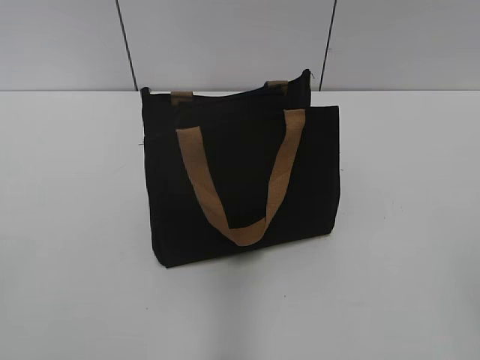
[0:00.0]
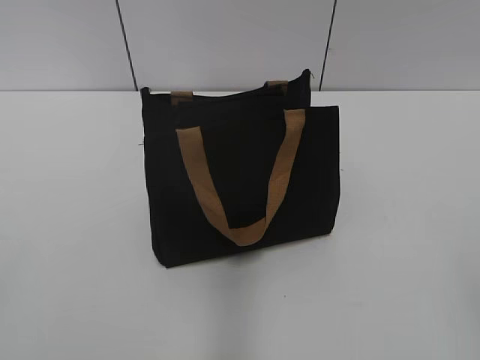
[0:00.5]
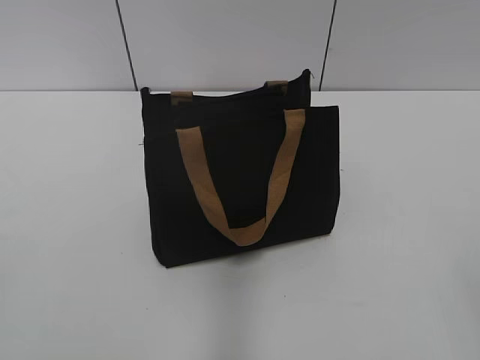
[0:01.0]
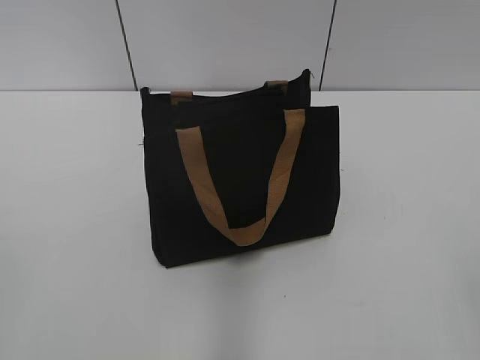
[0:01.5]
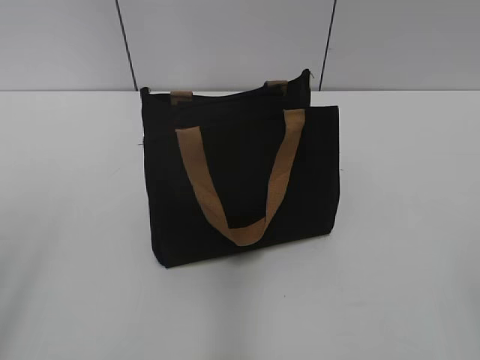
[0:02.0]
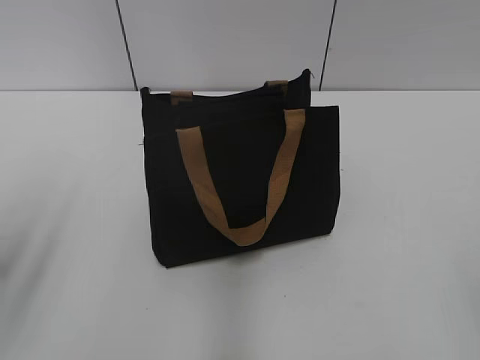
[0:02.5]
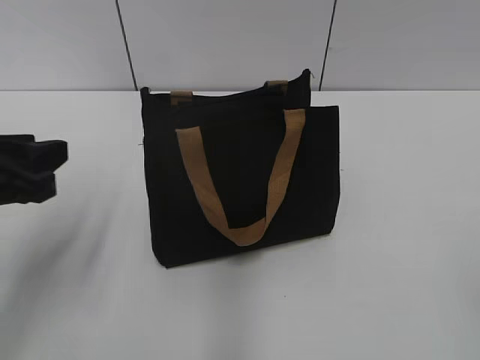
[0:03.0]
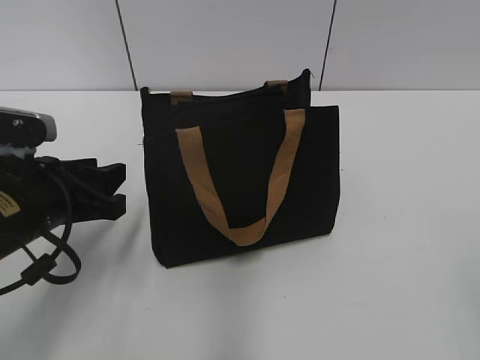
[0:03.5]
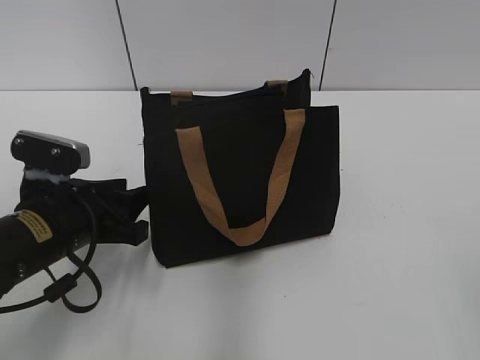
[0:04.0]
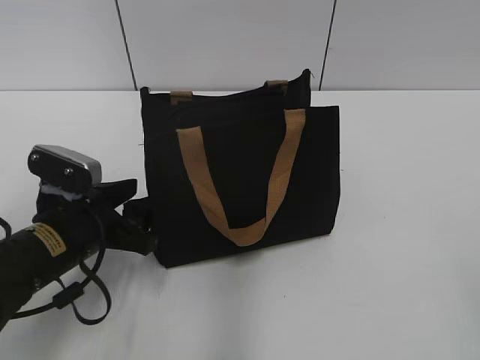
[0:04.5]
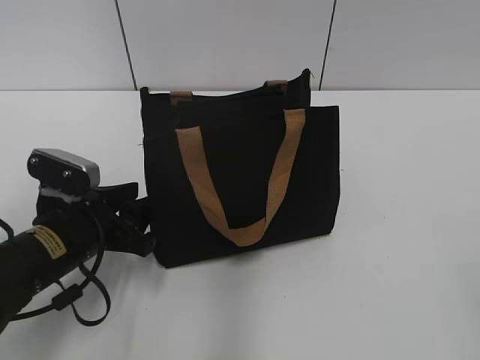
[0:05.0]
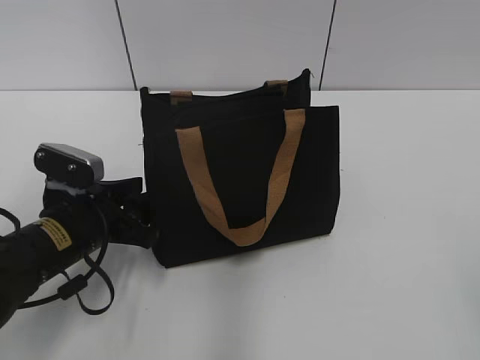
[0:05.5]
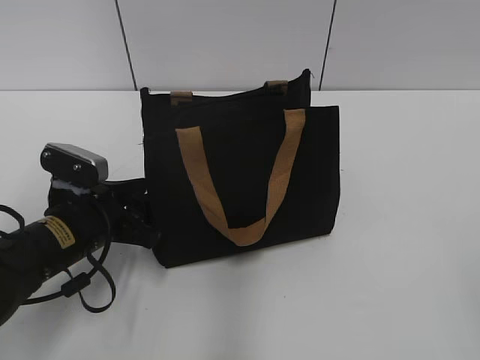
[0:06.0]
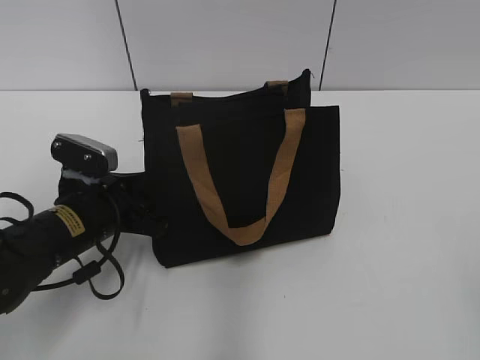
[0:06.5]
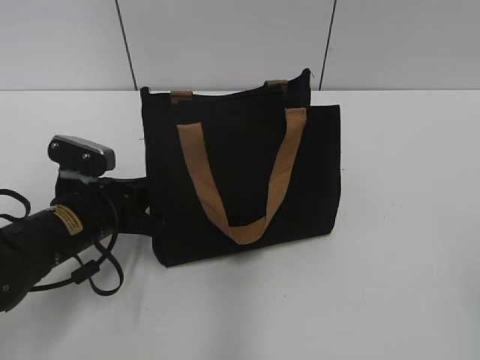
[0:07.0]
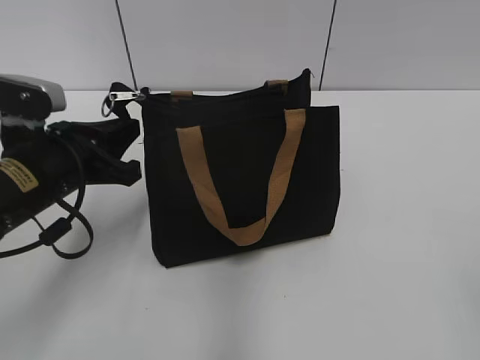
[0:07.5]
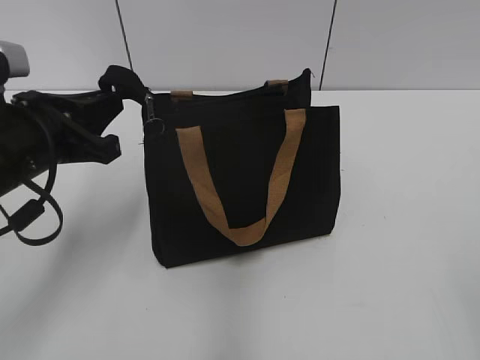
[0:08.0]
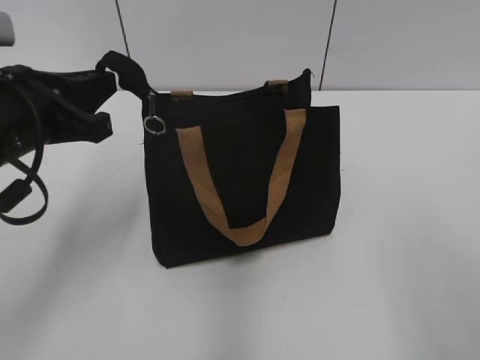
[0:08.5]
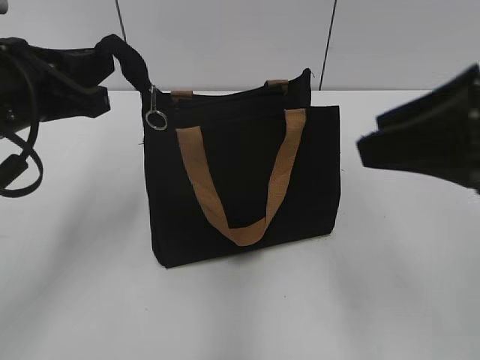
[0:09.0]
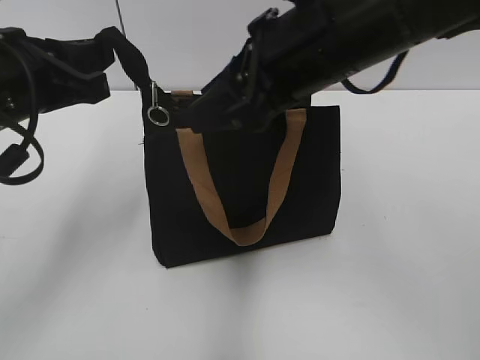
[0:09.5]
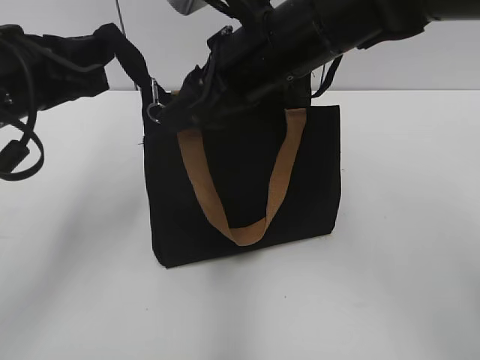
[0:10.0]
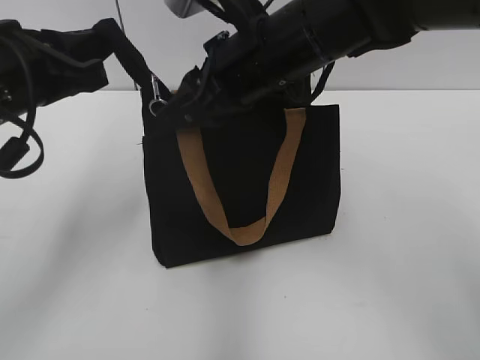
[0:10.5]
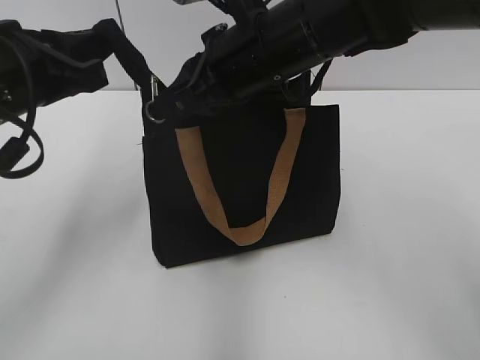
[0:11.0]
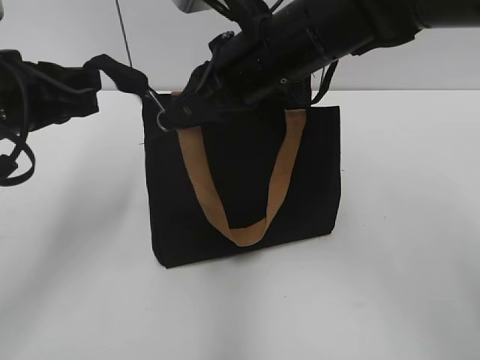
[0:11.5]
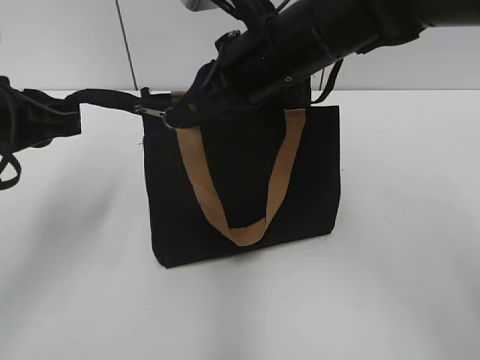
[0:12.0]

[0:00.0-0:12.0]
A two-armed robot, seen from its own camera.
0:02.0 to 0:04.0: The left gripper moves downward, forward and to the right, some 25 cm.
0:04.0 to 0:06.0: There are only small adjustments of the grippers.
0:06.0 to 0:08.0: The left gripper travels upward by some 10 cm, and closes up.
0:08.0 to 0:10.0: The left gripper goes roughly 5 cm upward. The right gripper goes about 40 cm forward and to the left.
0:10.0 to 0:12.0: The right gripper closes up.

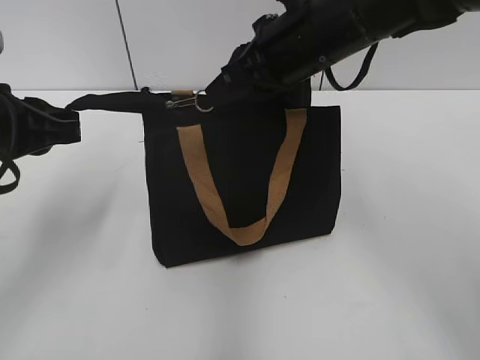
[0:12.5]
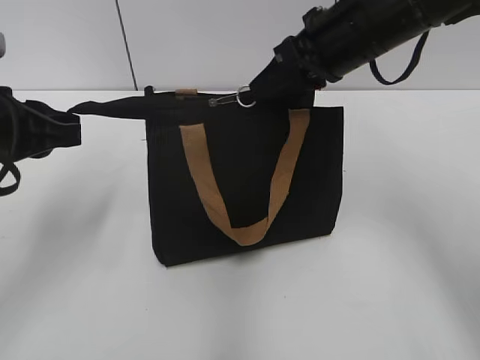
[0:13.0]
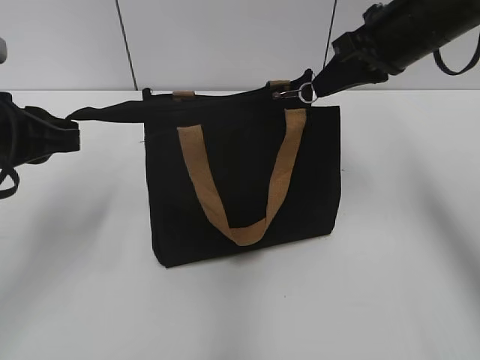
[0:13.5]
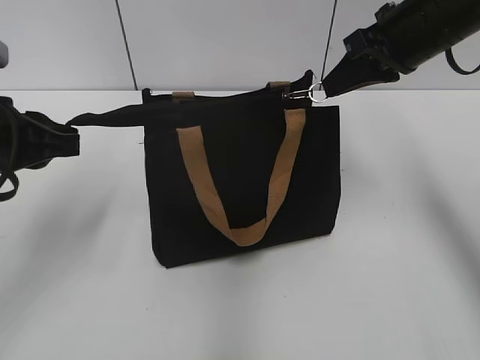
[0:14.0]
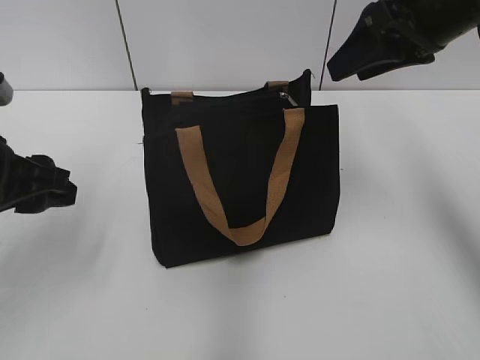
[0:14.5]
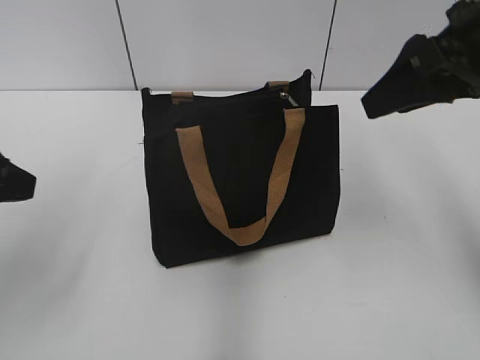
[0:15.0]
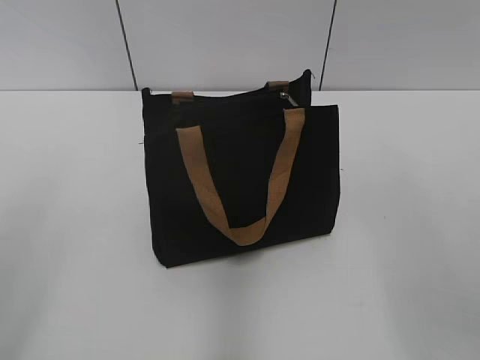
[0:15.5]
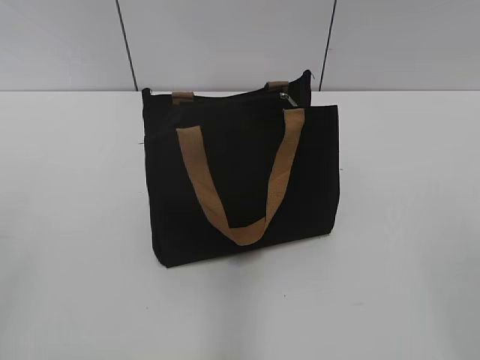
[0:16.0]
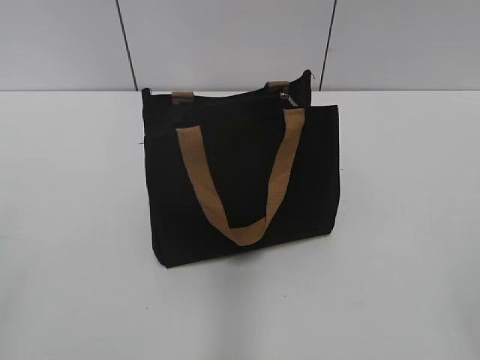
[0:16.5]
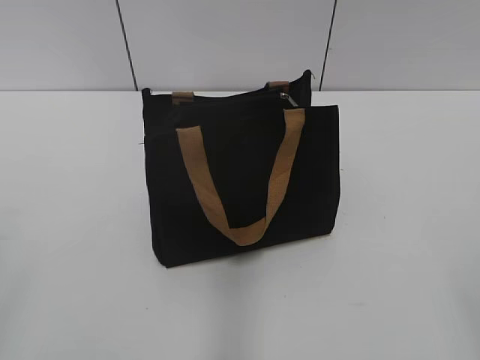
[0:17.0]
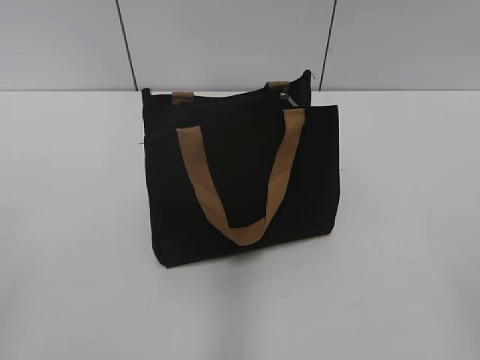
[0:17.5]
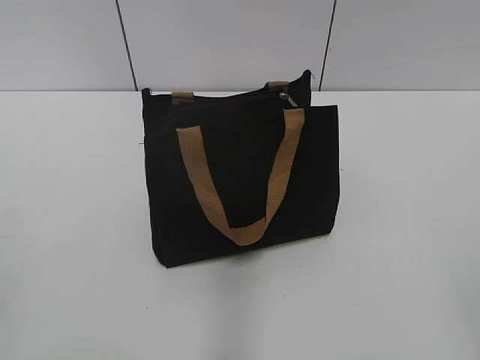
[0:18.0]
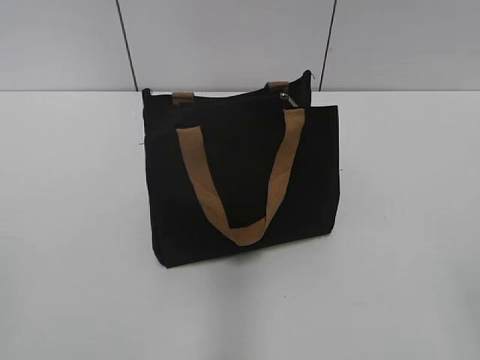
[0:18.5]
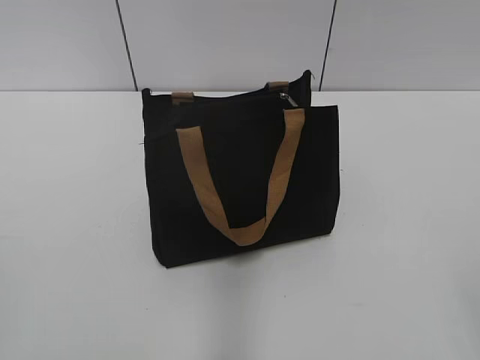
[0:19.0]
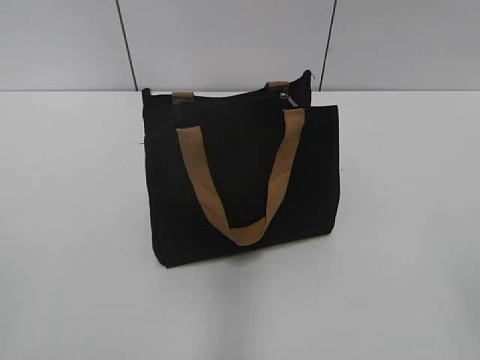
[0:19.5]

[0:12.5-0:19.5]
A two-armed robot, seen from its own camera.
0:12.5 to 0:14.5: The right gripper is displaced to the right by approximately 10 cm, and opens up. Meanwhile the left gripper opens its fingers.
0:14.5 to 0:16.0: The right gripper heads backward, covering roughly 30 cm, while the left gripper shifts about 20 cm backward and upward.

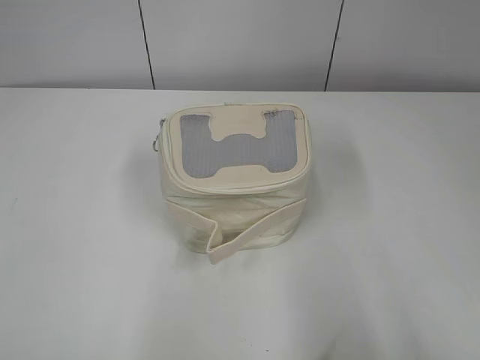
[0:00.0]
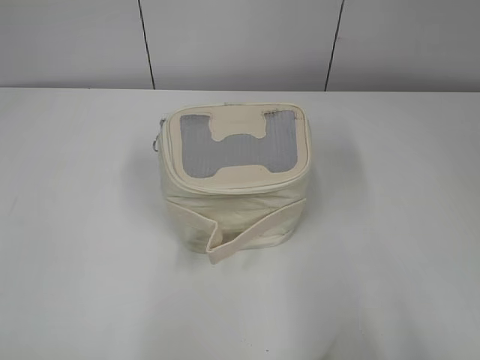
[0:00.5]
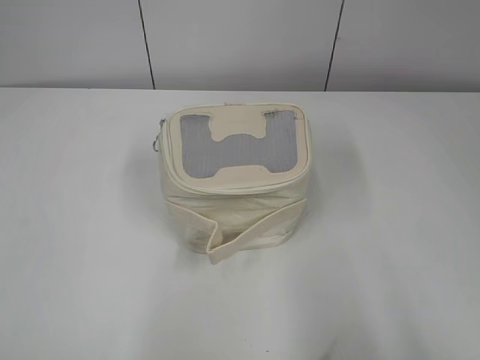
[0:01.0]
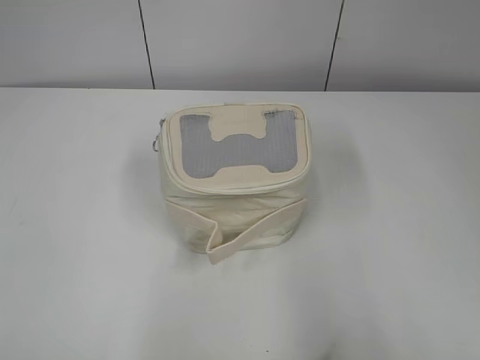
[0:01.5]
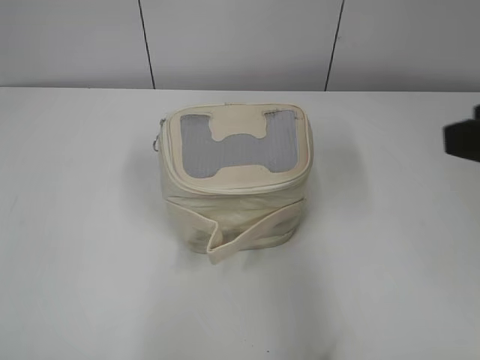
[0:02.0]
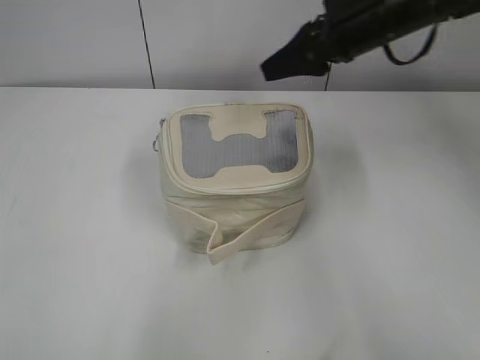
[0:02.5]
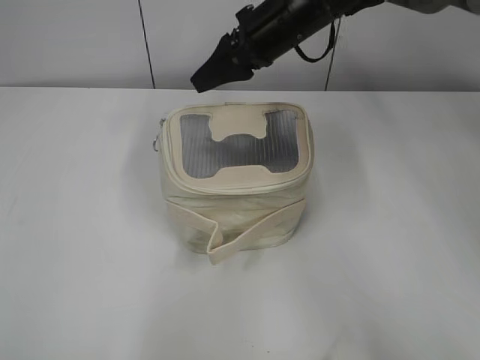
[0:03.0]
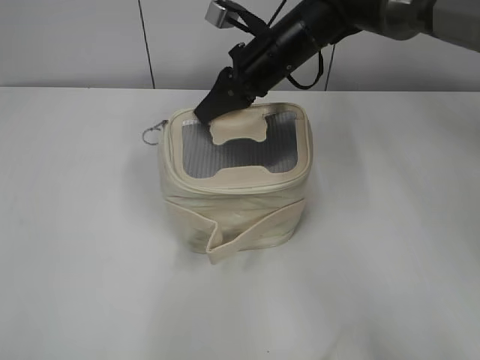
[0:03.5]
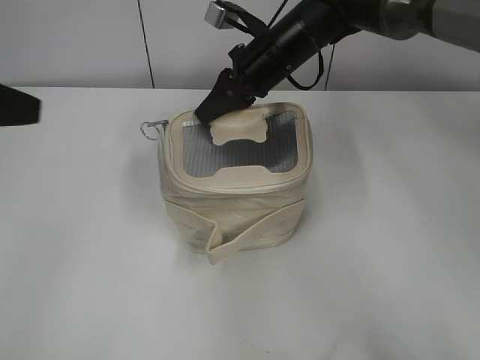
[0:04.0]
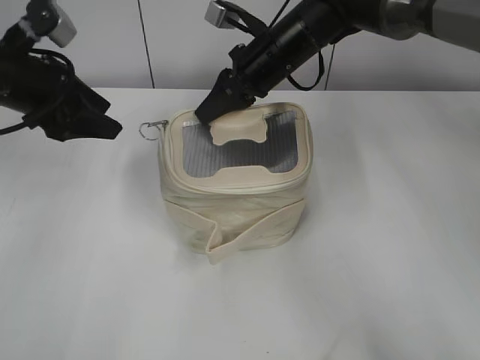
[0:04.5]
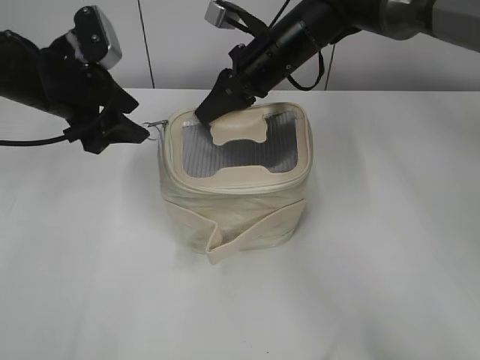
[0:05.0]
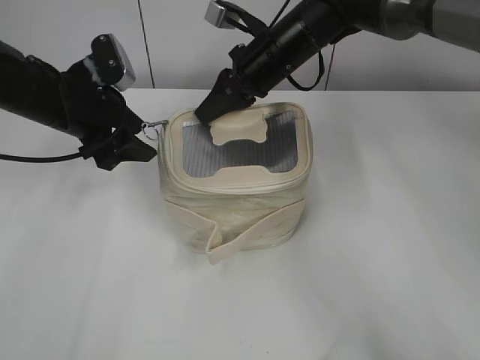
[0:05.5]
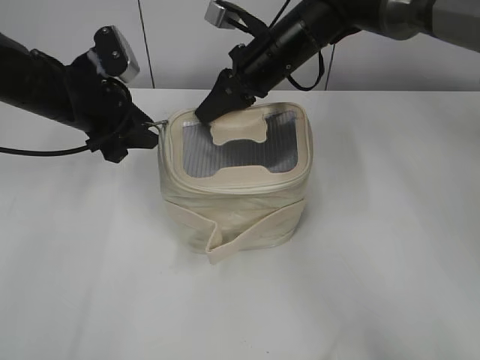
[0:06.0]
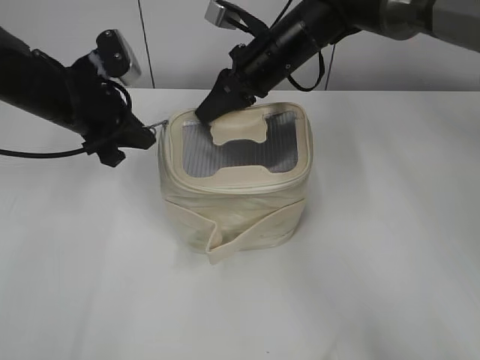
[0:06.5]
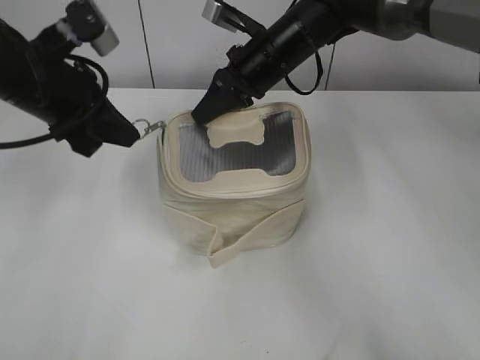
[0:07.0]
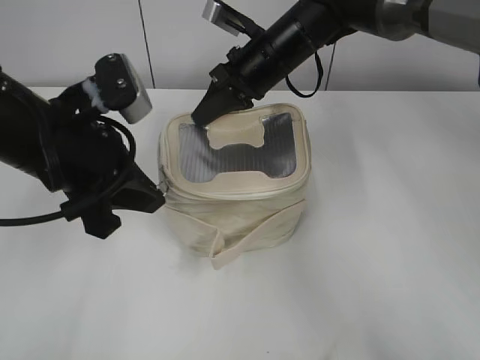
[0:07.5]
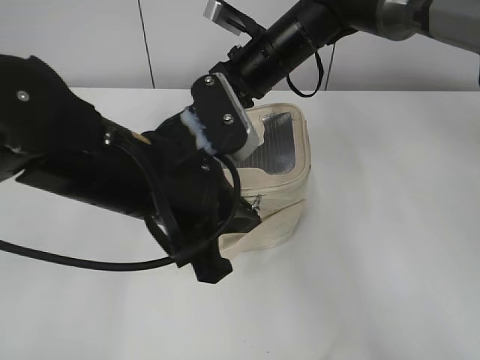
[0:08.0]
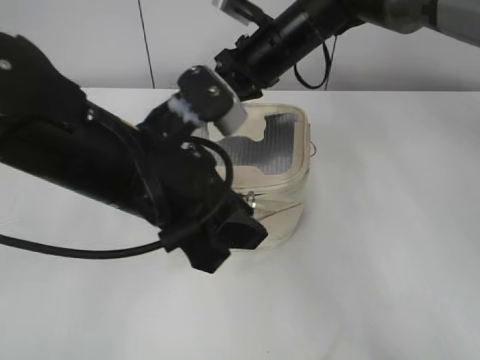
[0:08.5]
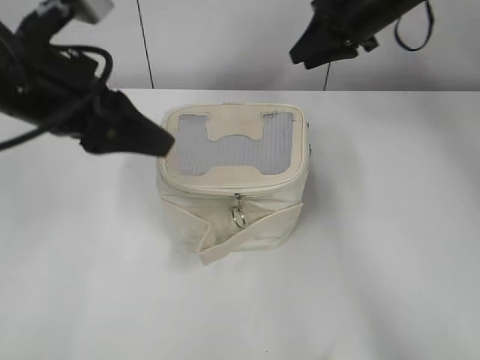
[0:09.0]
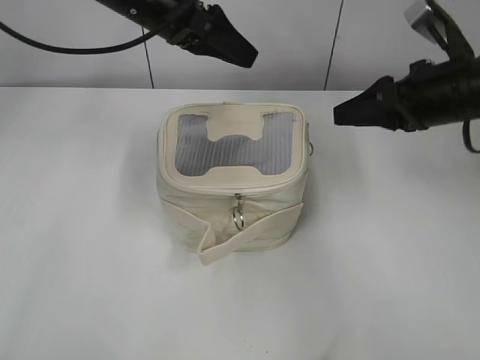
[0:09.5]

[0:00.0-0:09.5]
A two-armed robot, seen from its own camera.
Step, 0:00.0 to 0:08.5: Zip up the bag with your left hand.
0:02.0 to 0:04.0: The right gripper moves forward and to the left, about 40 cm, and closes its fingers. Meanwhile the left gripper shifts roughly 20 cm forward.
0:04.0 to 0:05.5: The left gripper shifts roughly 20 cm forward and downward.
0:05.5 to 0:07.5: The left gripper shifts some 10 cm backward, and closes up.
0:07.5 to 0:09.5: The left gripper travels forward and upward by about 15 cm, and opens up, while the right gripper moves to the right and backward, roughly 20 cm, and opens.
